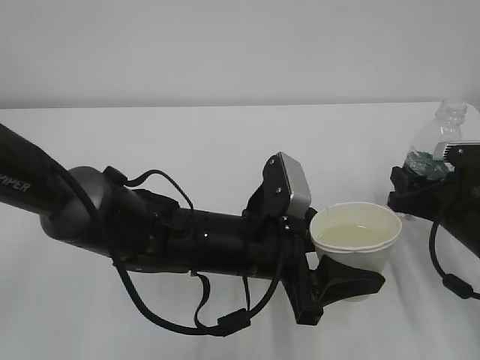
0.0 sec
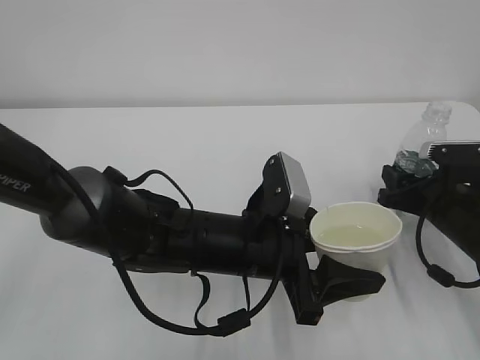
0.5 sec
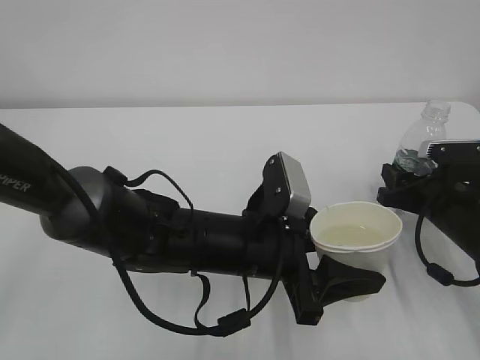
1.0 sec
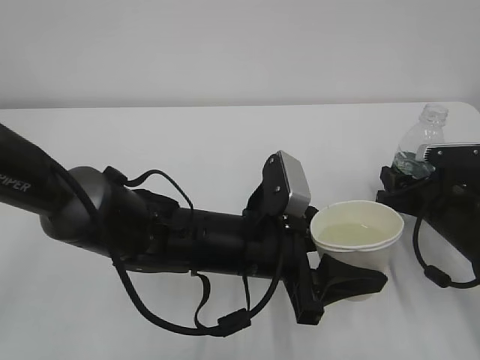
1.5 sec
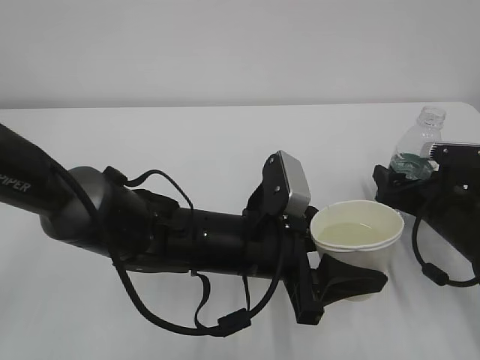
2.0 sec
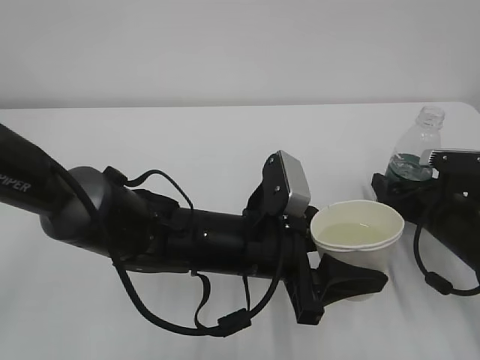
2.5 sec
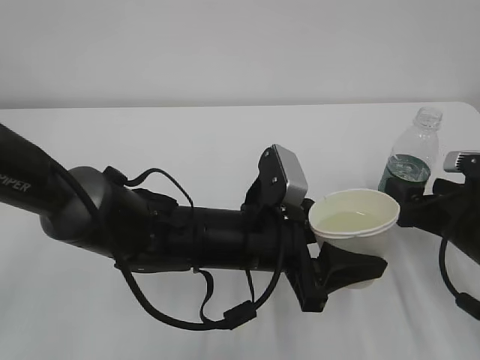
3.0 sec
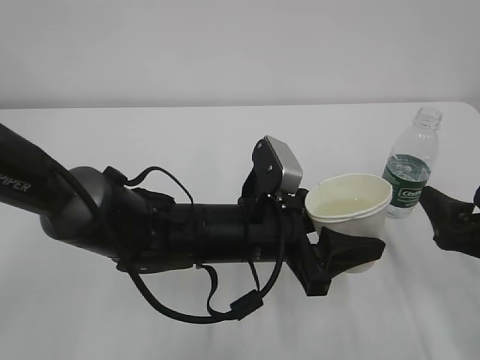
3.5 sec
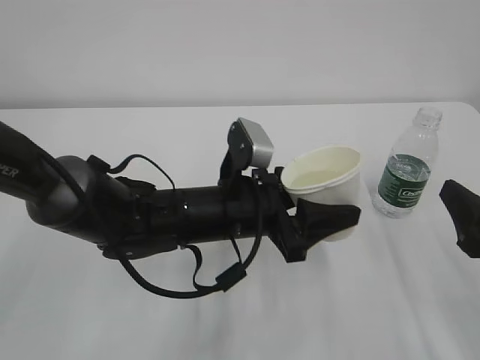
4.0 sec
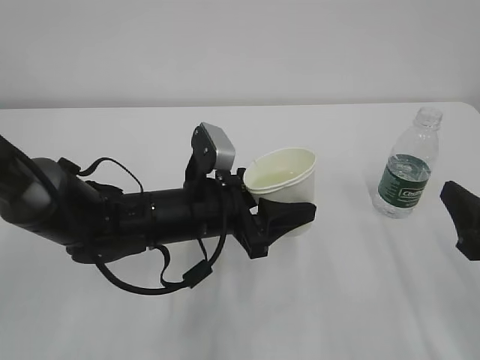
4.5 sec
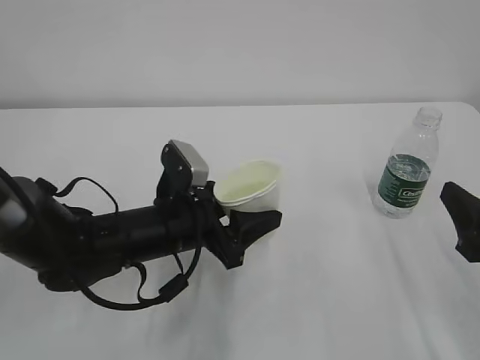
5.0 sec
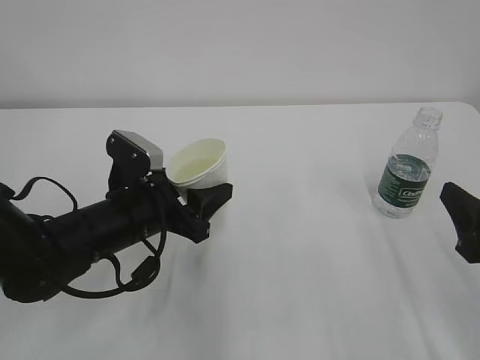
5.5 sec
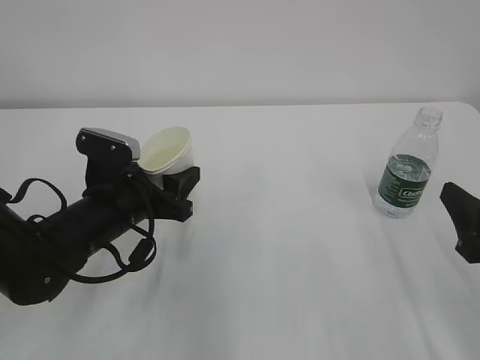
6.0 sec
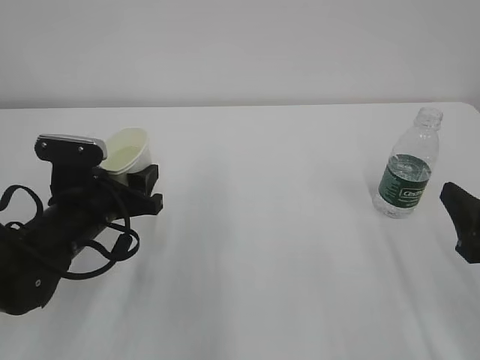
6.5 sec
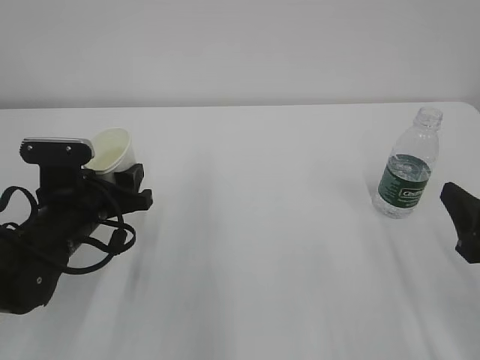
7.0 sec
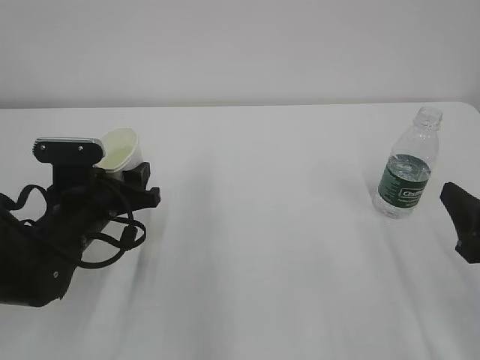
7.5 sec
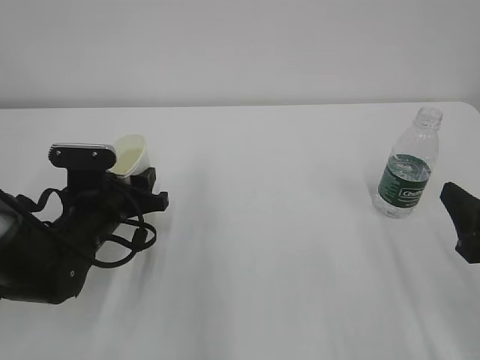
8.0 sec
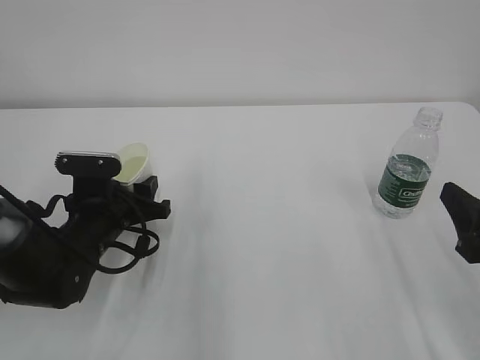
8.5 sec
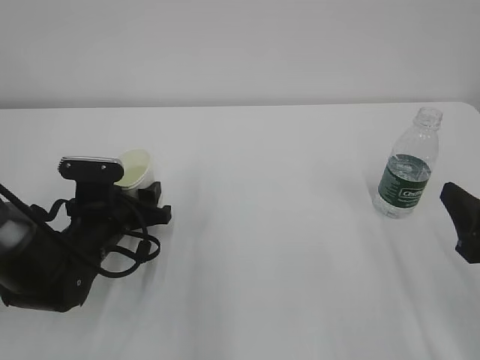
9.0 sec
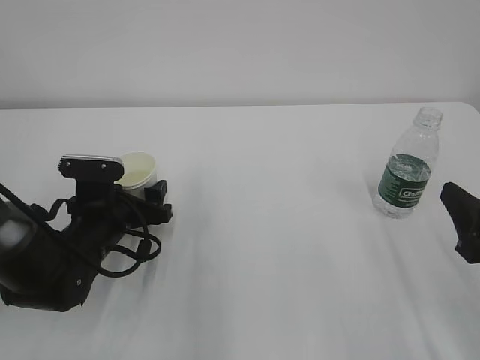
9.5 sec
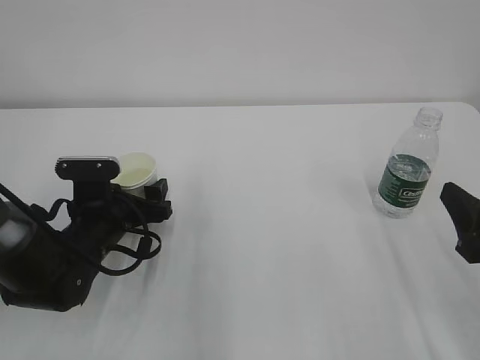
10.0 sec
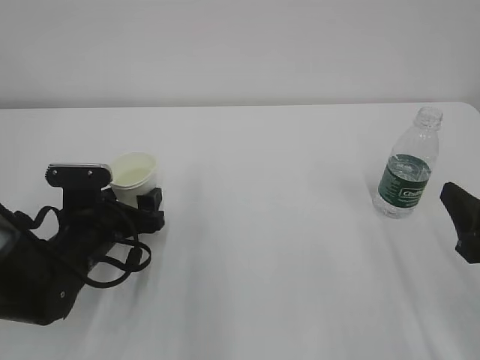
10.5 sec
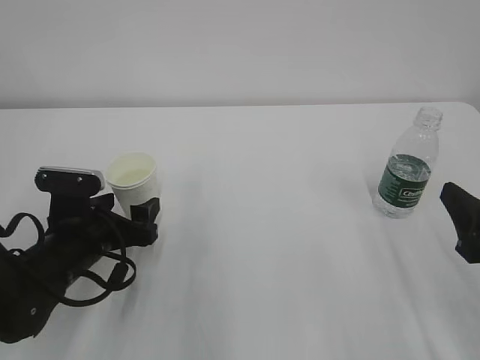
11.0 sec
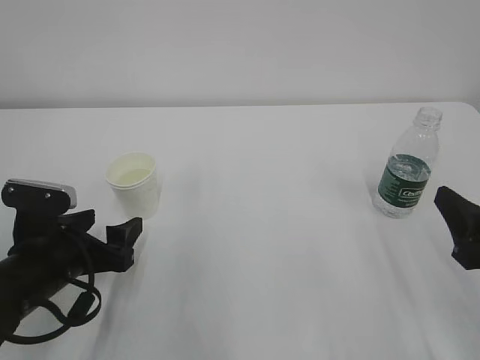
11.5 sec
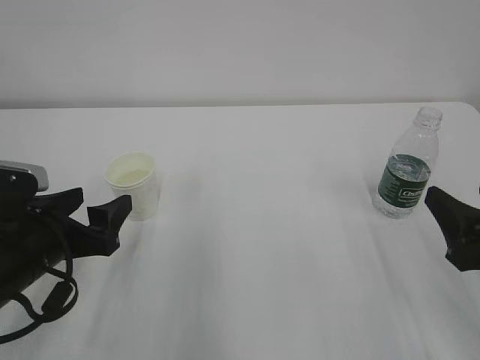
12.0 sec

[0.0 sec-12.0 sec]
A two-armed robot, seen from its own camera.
0.0 sec to 2.0 sec: The right gripper opens.
2.0 sec to 4.0 sec: The right gripper goes some 15 cm backward and upward.
4.0 sec to 6.0 sec: The left gripper is displaced to the left by roughly 15 cm.
8.0 sec to 10.0 sec: The left gripper opens up.
10.0 sec to 12.0 sec: The left gripper shifts approximately 10 cm backward and upward.

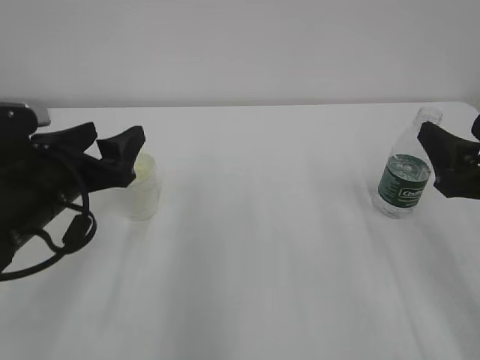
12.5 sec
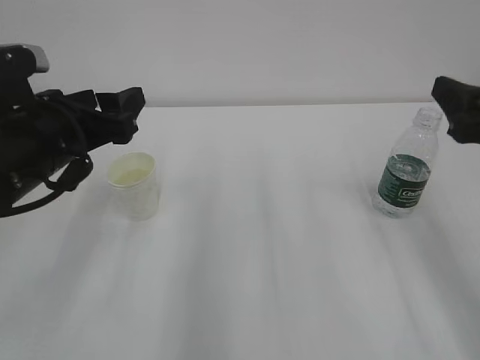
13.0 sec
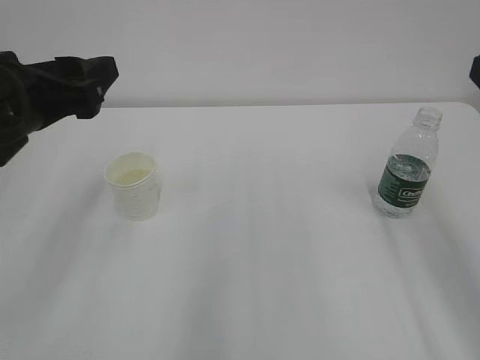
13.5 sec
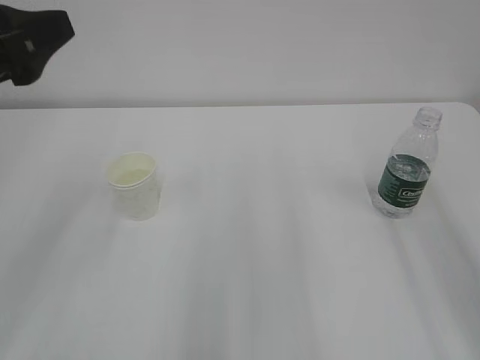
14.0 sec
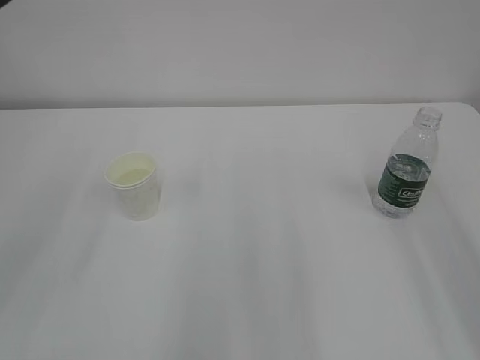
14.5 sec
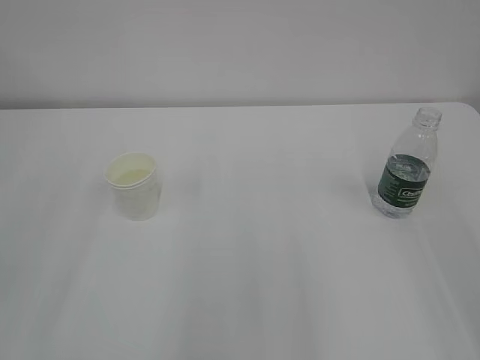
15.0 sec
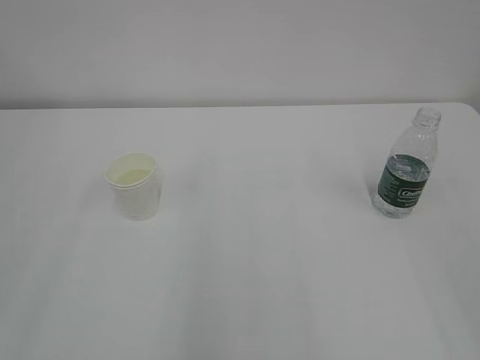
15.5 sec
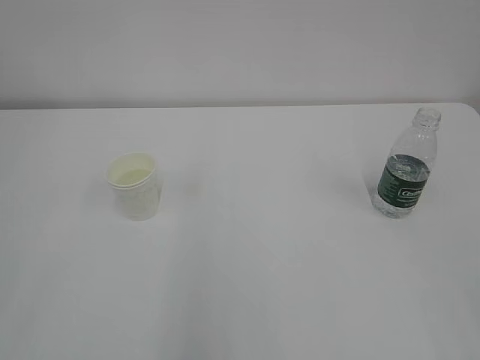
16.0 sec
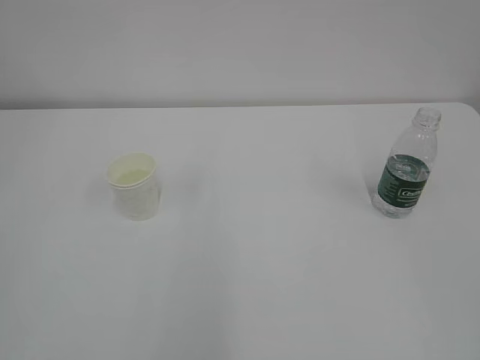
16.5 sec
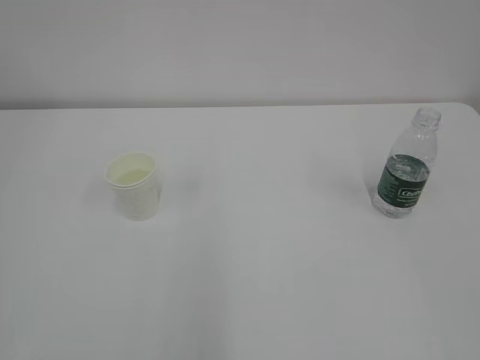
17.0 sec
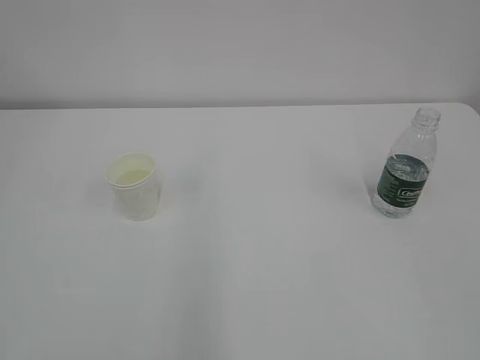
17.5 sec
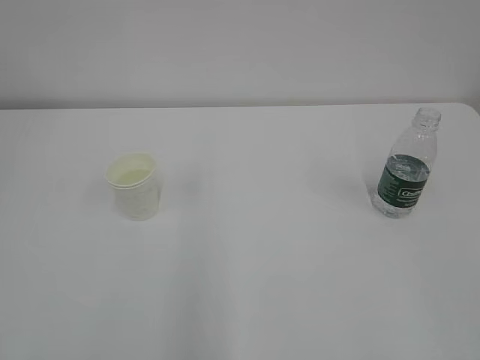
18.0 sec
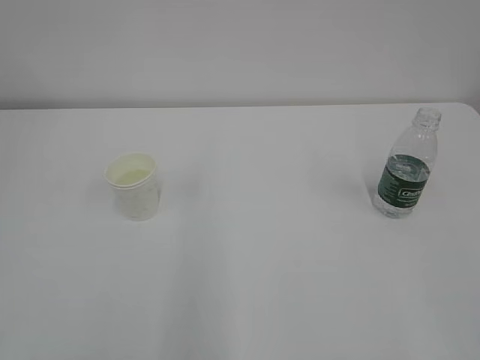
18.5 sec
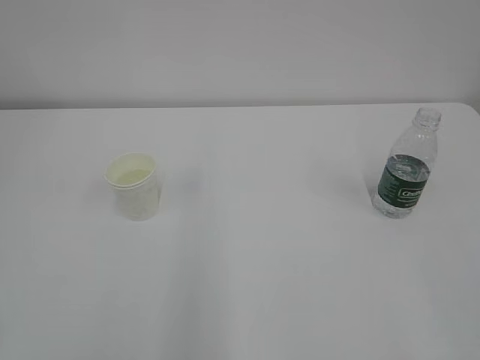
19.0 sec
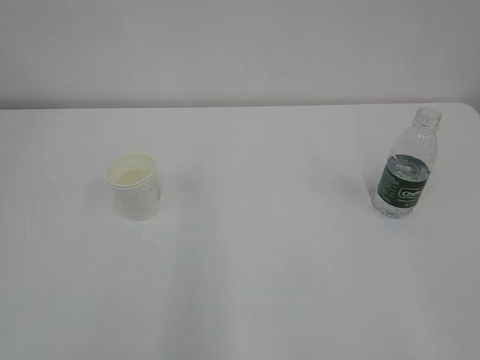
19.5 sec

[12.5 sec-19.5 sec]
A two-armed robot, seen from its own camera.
12.5 sec to 14.5 sec: The grippers both shift upward and backward by approximately 20 cm.

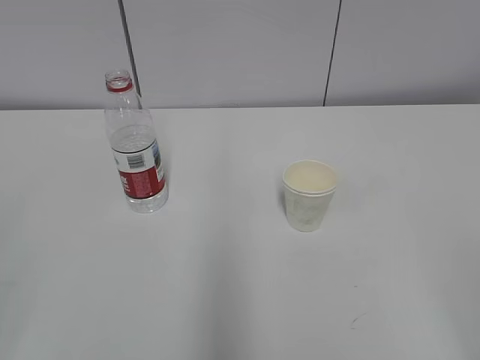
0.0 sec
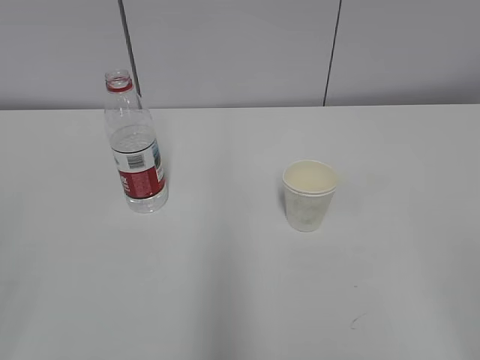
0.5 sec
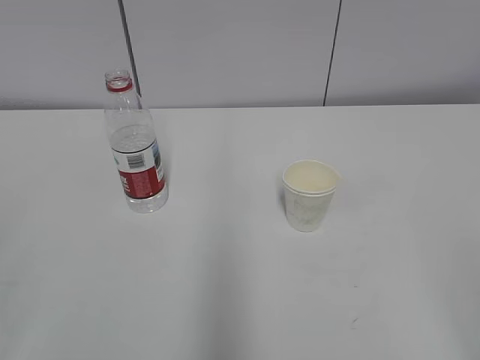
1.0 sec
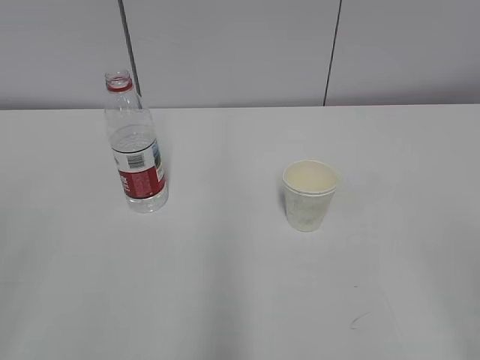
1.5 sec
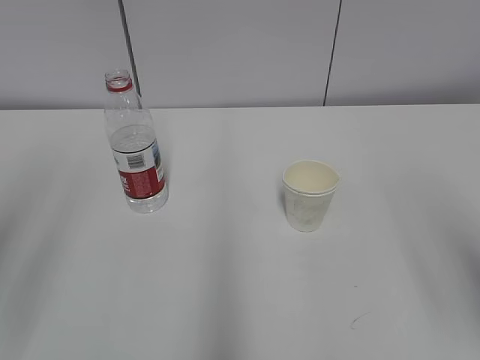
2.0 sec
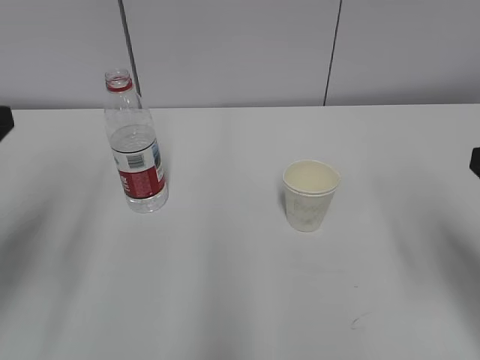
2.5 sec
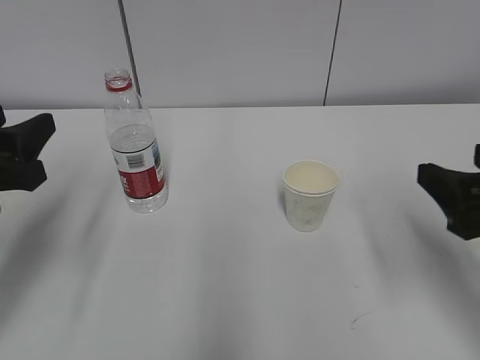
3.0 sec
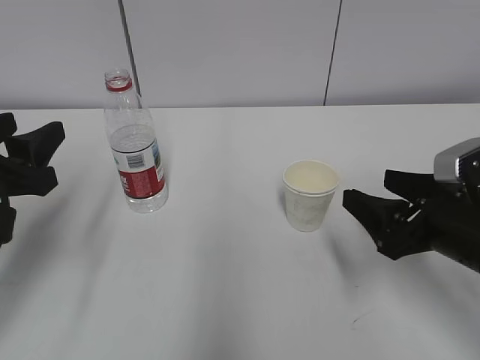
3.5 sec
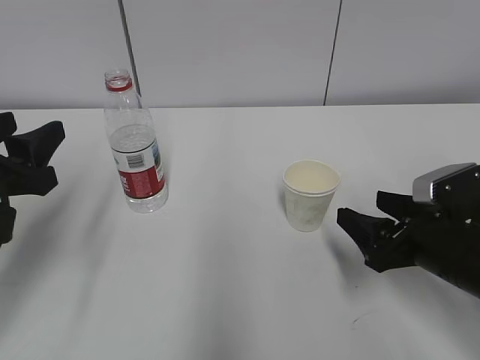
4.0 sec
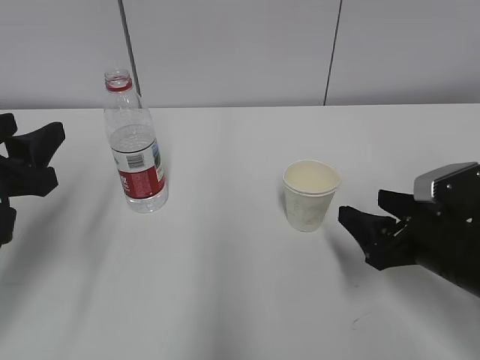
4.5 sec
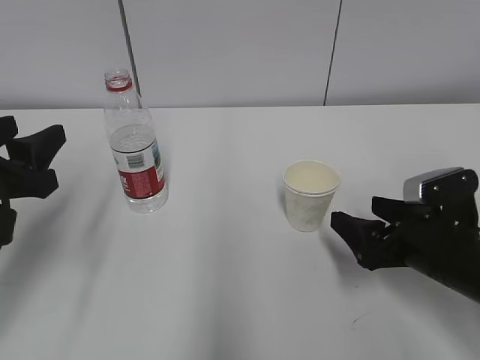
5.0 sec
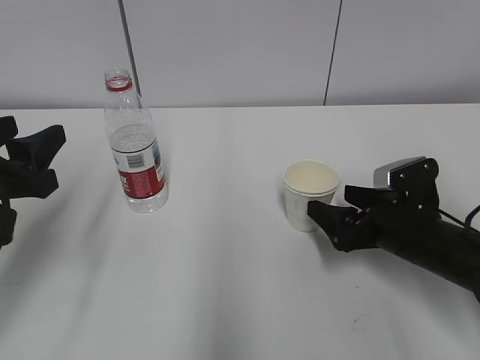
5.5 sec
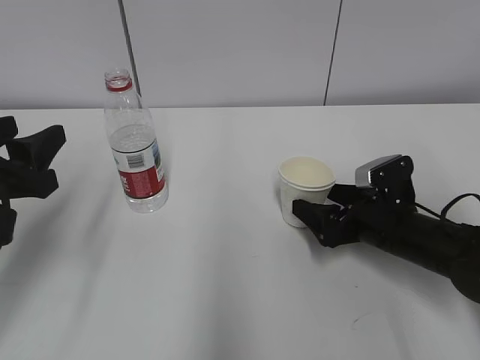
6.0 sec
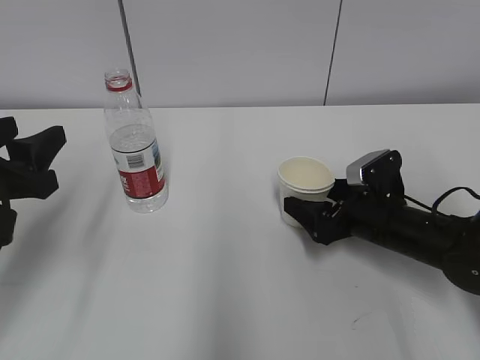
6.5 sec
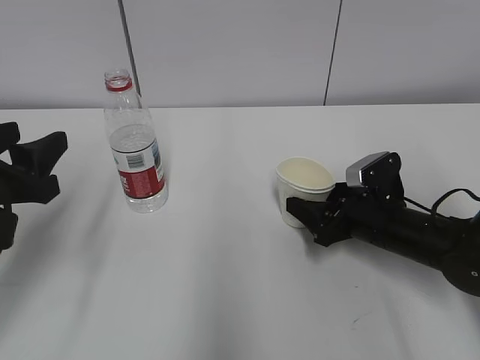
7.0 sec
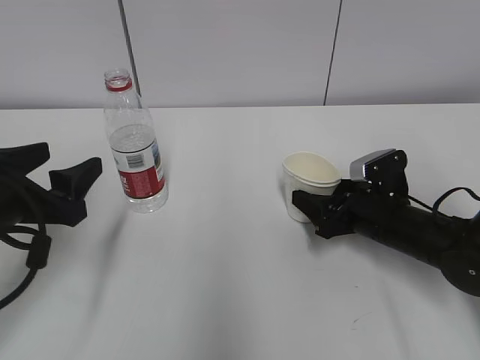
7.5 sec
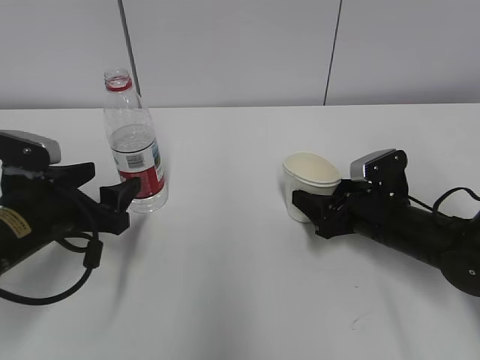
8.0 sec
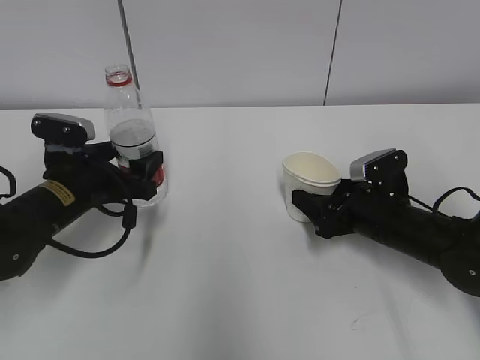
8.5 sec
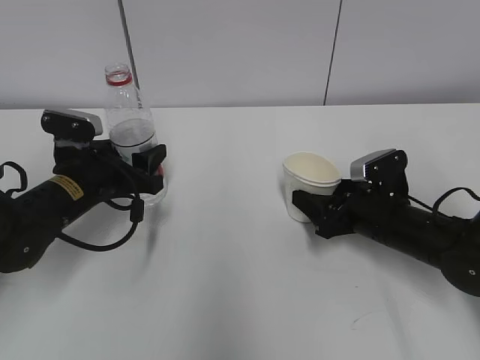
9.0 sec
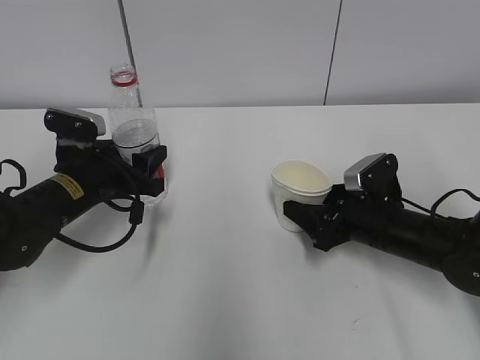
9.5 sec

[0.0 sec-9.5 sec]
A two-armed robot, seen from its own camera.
Step, 0.0 sec to 5.5 sec: Grab the paper cup with the right hand.
Step, 6.0 sec to 7.5 sec: Grab the water bottle with the left hand.
2.0 sec to 4.0 sec: Both grippers move downward and forward, some 20 cm.
4.0 sec to 5.5 sec: The right gripper shifts about 5 cm forward.
5.5 sec to 7.5 sec: The left gripper opens up; the right gripper closes up.
7.5 sec to 9.5 sec: The left gripper is displaced forward and downward by some 15 cm, and closes up.
